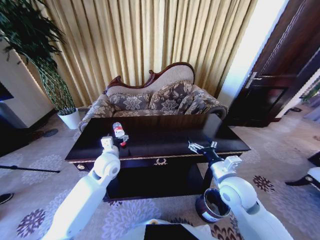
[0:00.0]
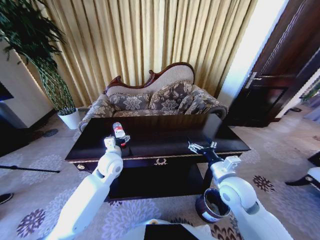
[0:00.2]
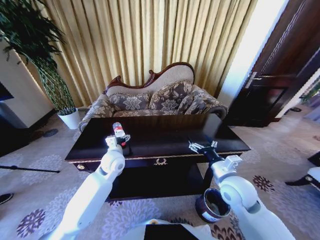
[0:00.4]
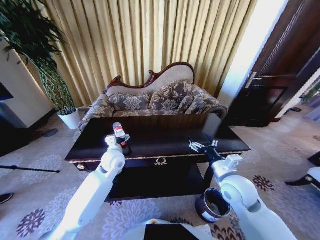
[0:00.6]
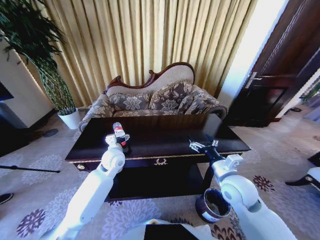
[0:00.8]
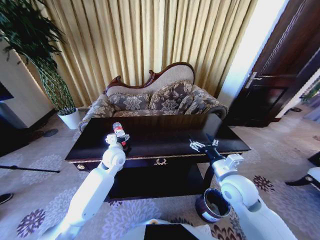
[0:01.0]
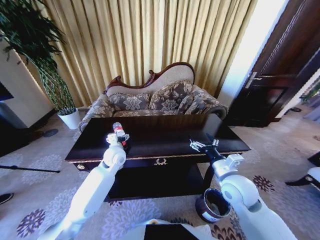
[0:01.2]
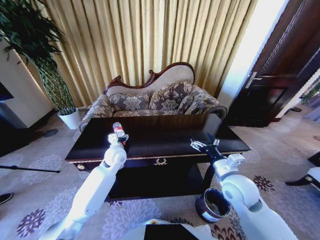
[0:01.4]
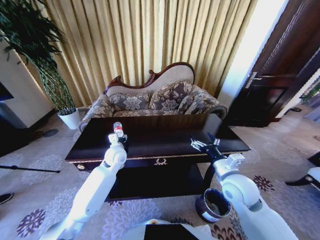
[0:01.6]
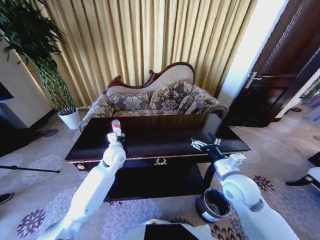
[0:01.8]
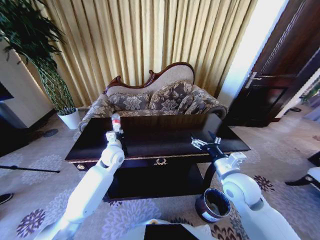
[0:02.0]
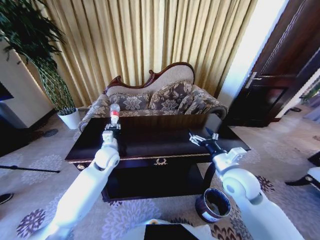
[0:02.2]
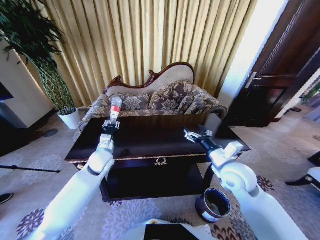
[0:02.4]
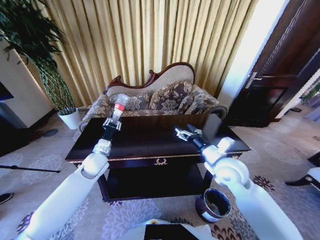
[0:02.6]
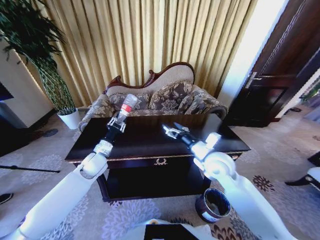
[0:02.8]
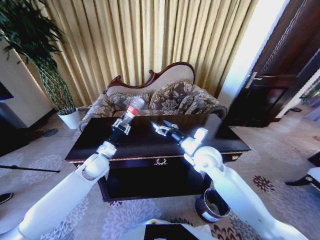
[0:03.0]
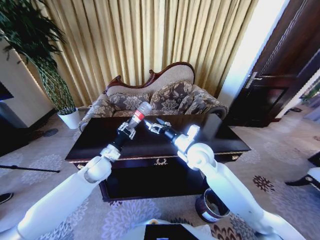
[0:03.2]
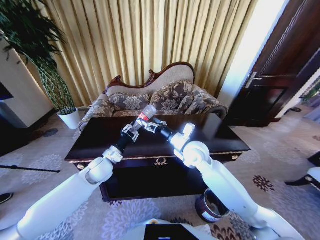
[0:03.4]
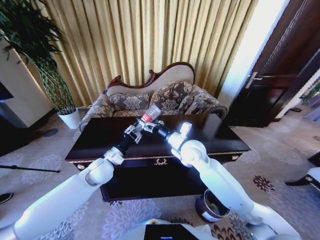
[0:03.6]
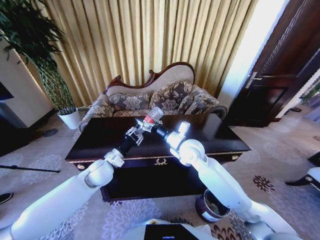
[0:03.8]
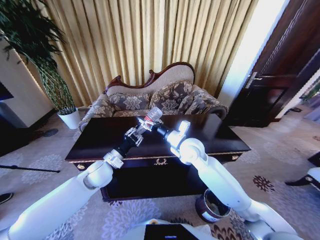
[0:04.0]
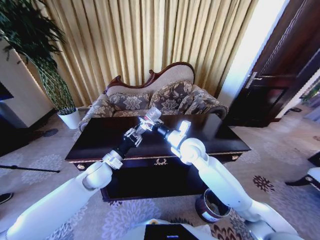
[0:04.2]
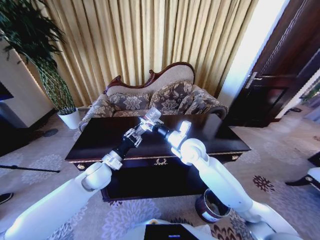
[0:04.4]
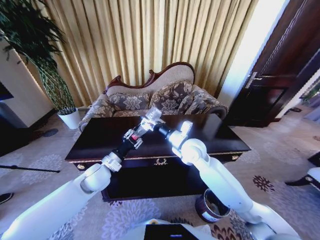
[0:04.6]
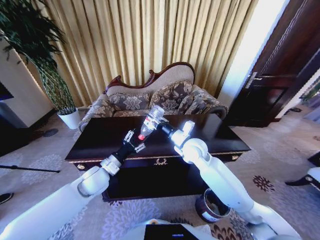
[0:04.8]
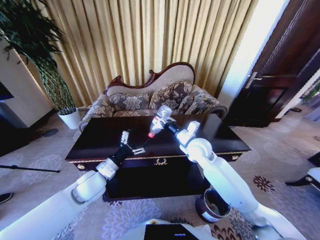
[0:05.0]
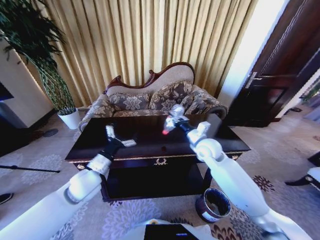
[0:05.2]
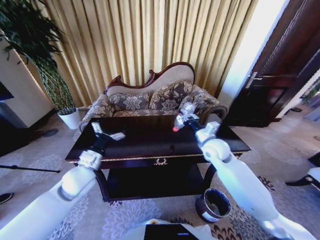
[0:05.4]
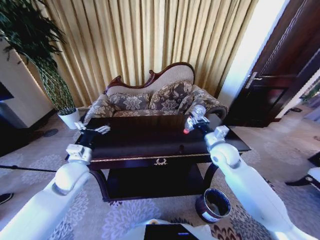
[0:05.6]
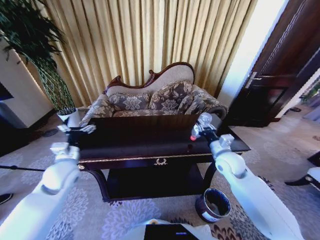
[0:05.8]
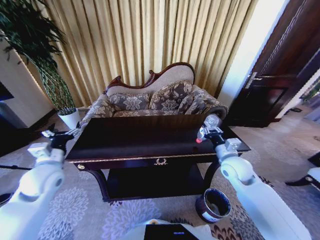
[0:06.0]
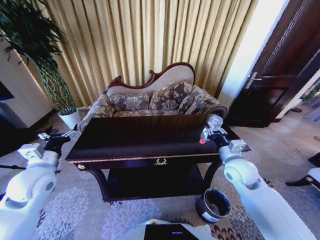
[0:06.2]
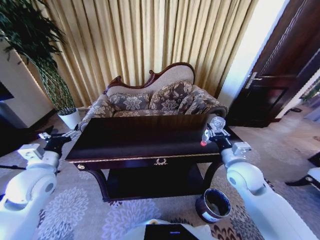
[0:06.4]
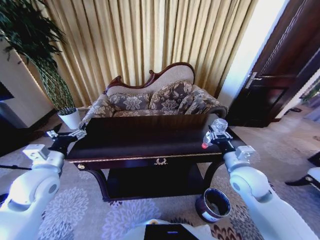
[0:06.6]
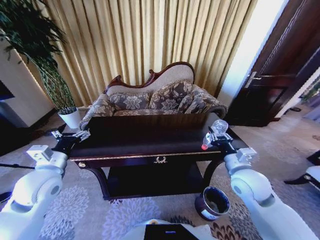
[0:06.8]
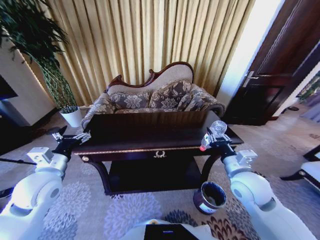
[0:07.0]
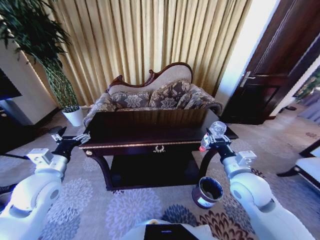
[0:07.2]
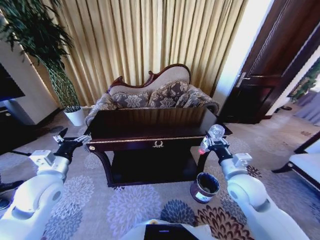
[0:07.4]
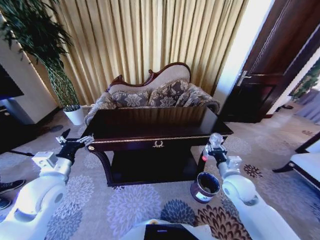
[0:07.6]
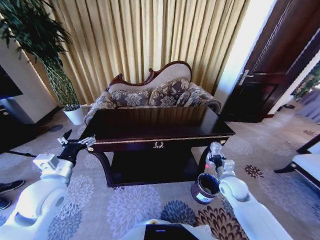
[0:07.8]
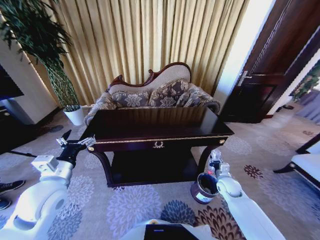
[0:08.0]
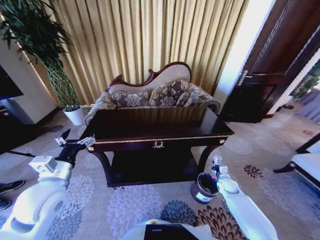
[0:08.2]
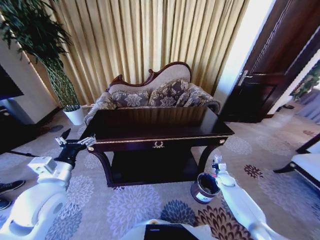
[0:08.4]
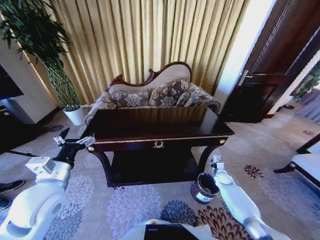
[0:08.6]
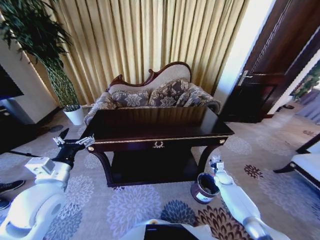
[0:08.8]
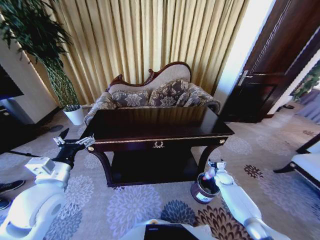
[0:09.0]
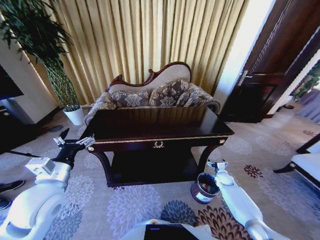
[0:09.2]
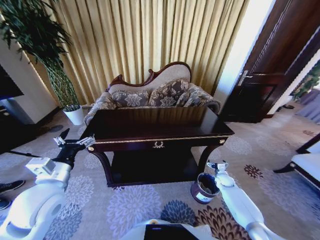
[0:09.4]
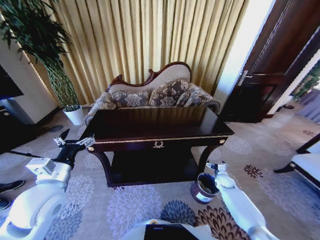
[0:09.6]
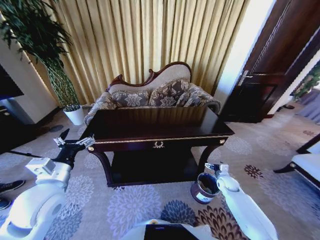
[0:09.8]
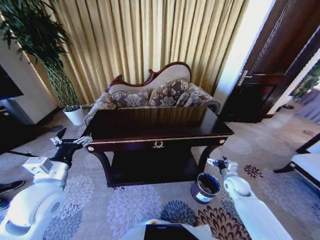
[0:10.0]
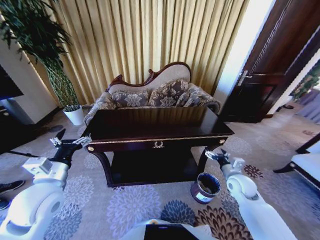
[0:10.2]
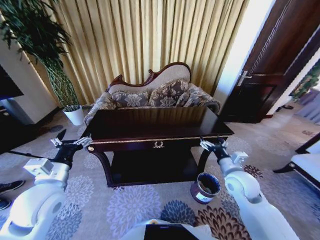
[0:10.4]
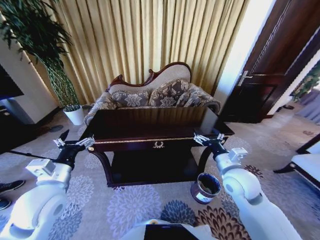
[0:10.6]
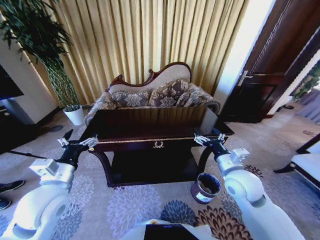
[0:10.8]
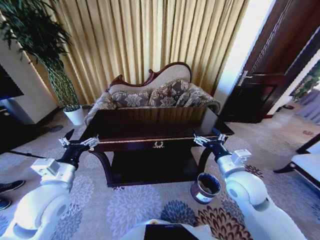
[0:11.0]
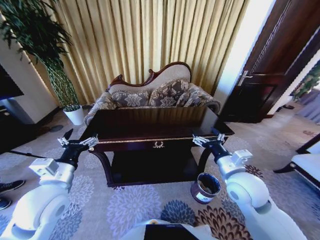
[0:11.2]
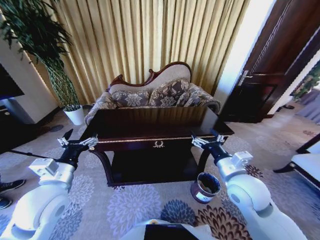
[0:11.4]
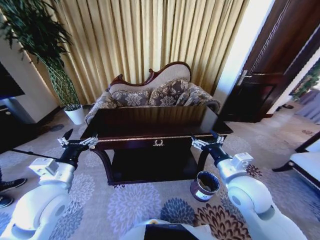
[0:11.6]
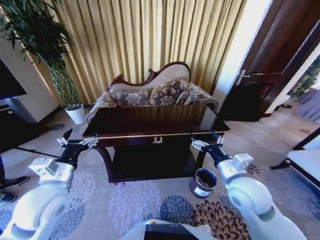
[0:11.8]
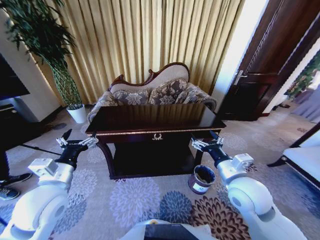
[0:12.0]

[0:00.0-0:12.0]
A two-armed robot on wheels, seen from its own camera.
Task of the whole recording: Move to the front of the table and place the trash on the table into the trash bin.
0:00.0 to 0:01.6: The left gripper heads forward, covering approximately 5 cm, and closes up.
0:01.6 to 0:03.0: The left gripper moves to the left, approximately 5 cm, and closes up. Meanwhile the right gripper shifts some 15 cm forward and to the left.
0:03.0 to 0:04.4: The right gripper ends up roughly 5 cm from where it was, and closes its fingers.
0:04.4 to 0:06.0: The right gripper goes some 15 cm to the right. The left gripper is displaced to the left and upward by roughly 15 cm, and opens its fingers.
0:06.0 to 0:07.6: The right gripper heads backward, covering about 5 cm; the left gripper shifts by roughly 5 cm.
0:07.6 to 0:09.0: The right gripper heads downward, to the right and forward, covering roughly 30 cm, and opens up.
0:09.0 to 0:10.4: The right gripper travels upward, to the left and backward by some 30 cm.
0:10.4 to 0:12.0: The right gripper is displaced upward by roughly 5 cm.

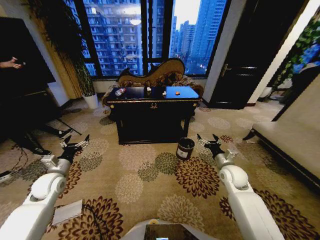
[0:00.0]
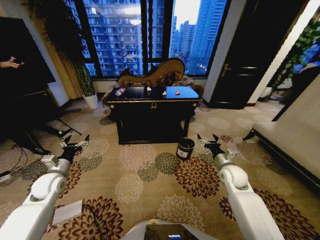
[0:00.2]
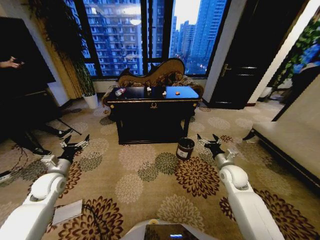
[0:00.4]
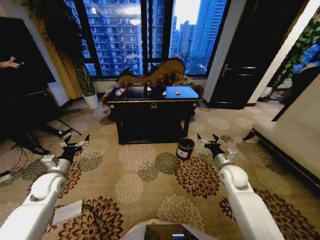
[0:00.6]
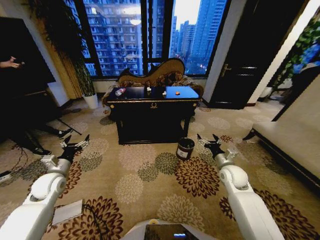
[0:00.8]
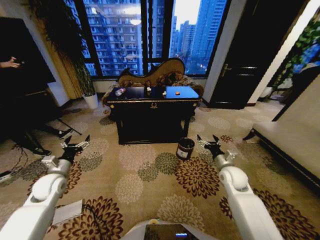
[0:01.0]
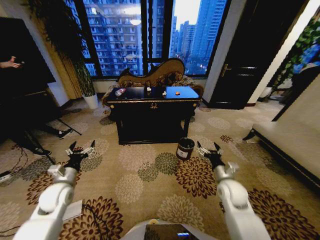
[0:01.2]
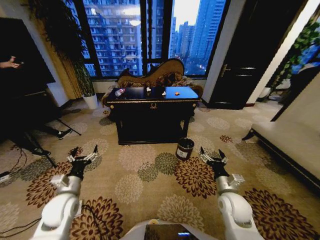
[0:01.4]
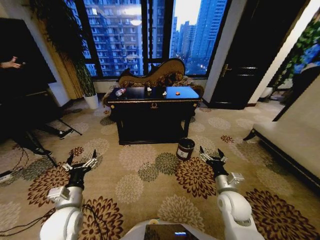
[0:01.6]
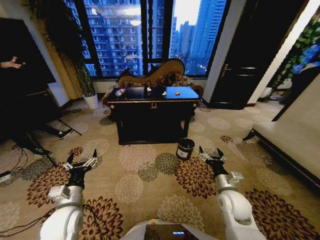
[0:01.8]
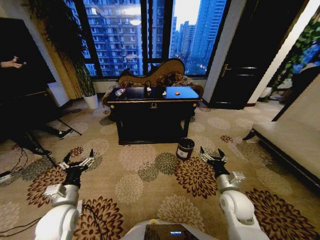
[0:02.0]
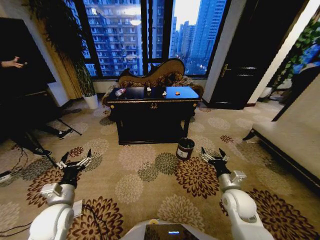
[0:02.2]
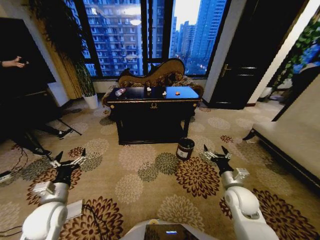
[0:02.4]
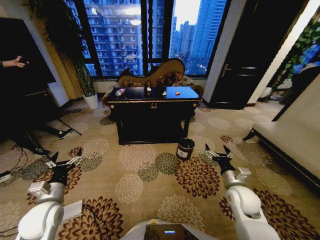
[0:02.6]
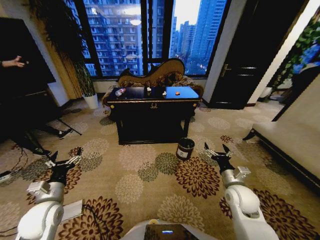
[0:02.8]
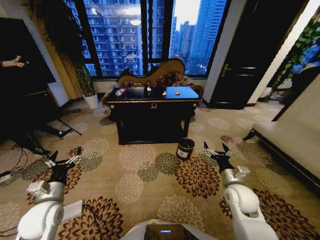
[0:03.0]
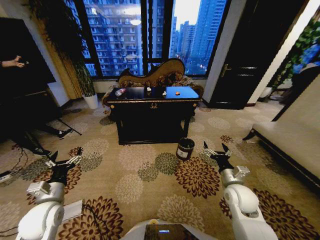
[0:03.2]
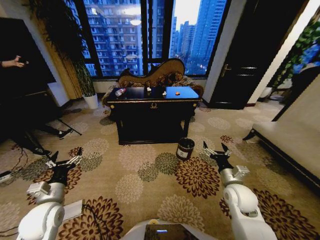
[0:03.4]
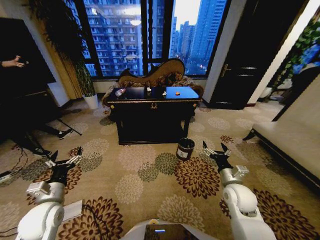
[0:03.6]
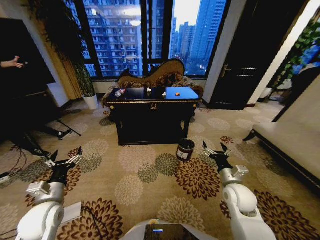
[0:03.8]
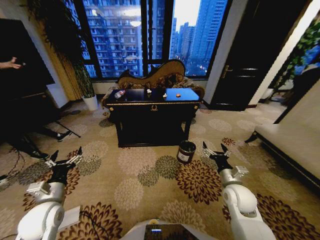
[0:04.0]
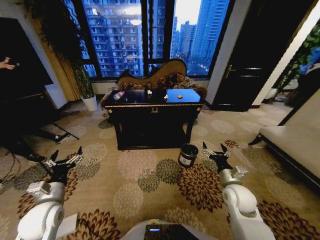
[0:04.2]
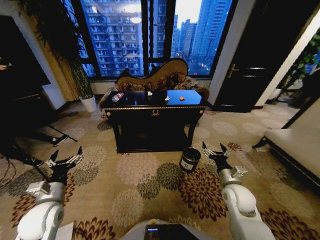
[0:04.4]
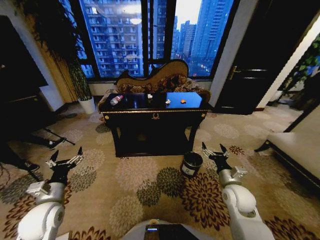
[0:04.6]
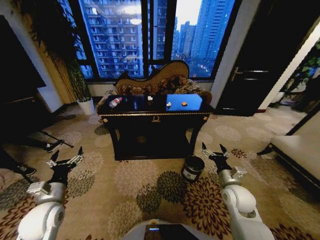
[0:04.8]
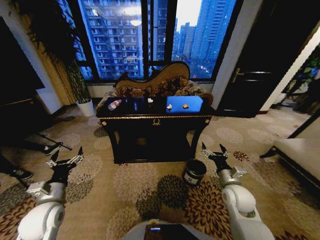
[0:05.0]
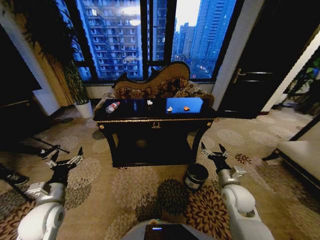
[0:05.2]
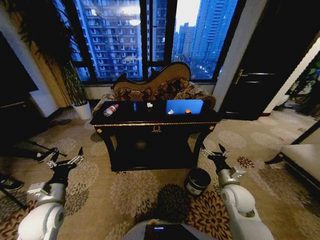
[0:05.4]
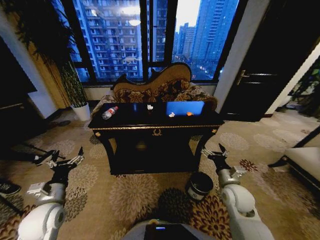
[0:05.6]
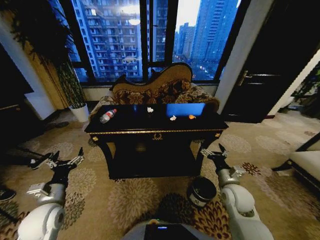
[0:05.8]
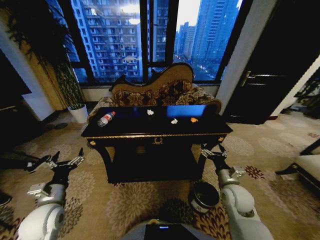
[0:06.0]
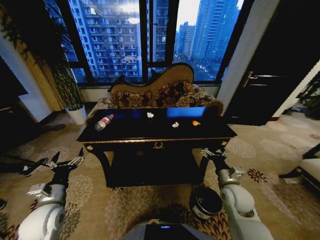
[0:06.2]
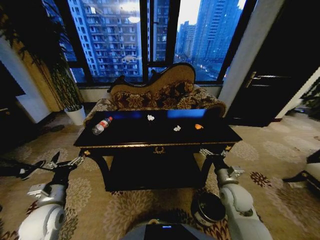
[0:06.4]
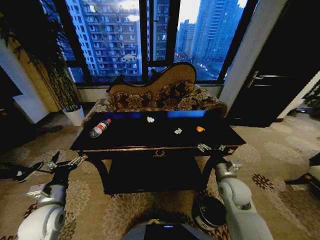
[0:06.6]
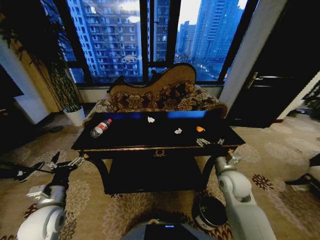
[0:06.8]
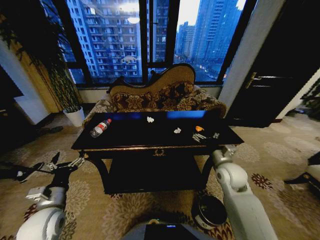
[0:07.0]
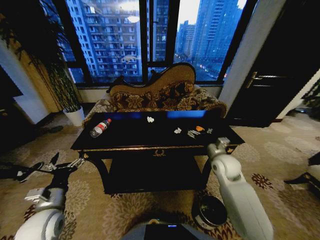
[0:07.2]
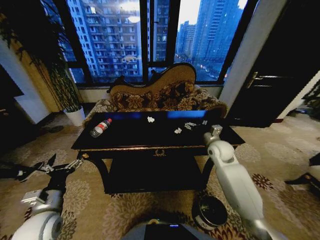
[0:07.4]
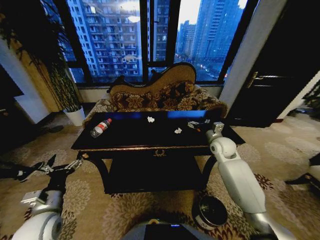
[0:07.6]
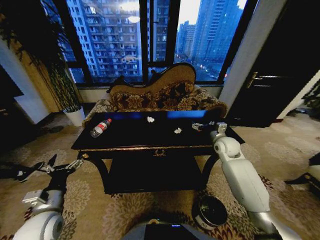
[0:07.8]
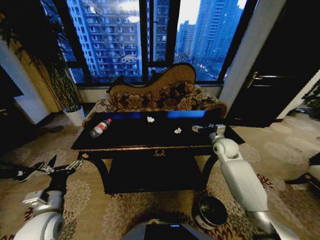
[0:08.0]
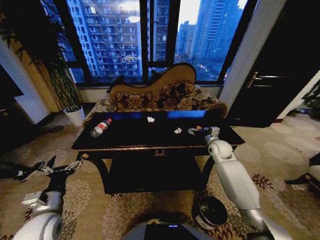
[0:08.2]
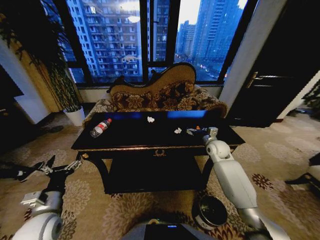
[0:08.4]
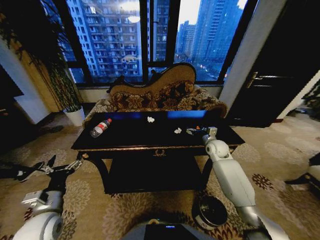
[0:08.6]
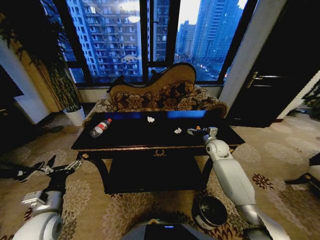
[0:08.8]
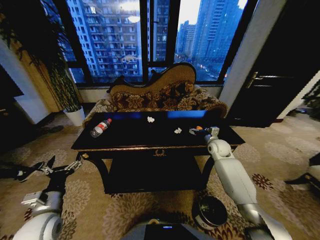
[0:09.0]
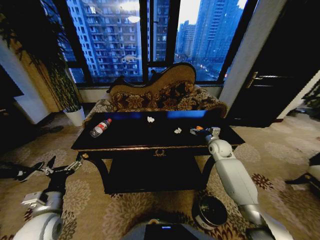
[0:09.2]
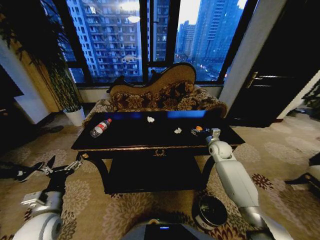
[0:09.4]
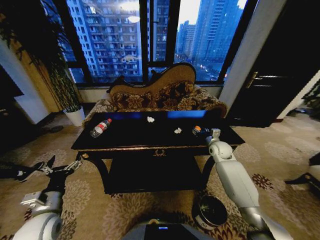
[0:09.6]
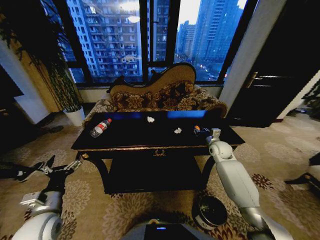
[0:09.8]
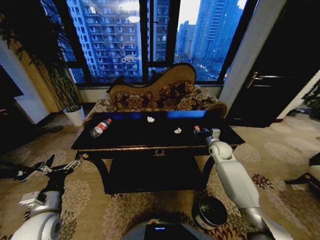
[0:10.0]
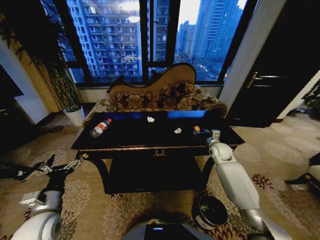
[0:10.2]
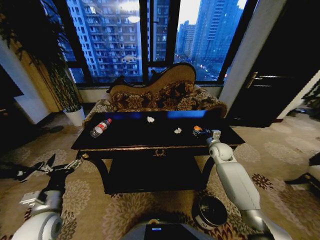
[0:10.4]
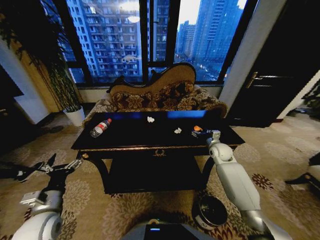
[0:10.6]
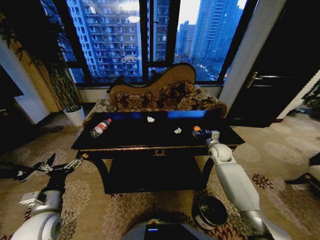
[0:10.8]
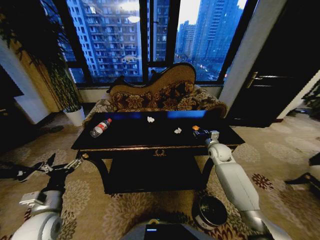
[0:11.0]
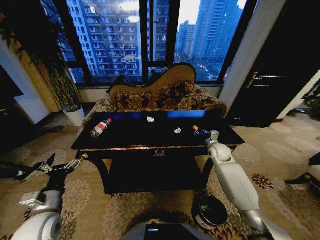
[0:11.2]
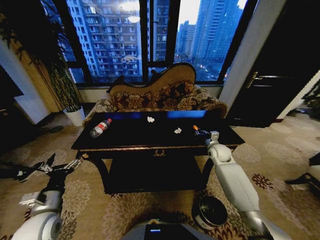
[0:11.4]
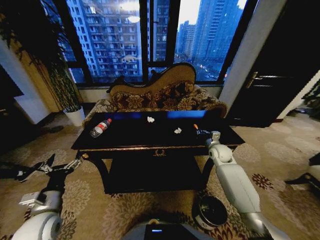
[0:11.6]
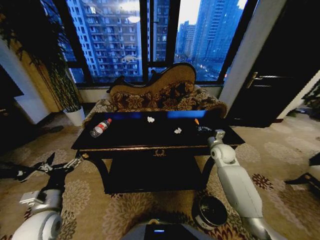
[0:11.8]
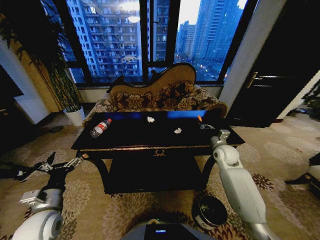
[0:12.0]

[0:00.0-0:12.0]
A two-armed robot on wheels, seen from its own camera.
Task of the whole recording: Move to the front of the table and place the trash on the table into the trash bin.
0:01.6 to 0:03.0: The left gripper shifts roughly 5 cm to the left.
0:06.0 to 0:07.6: The right gripper goes roughly 20 cm forward.
0:07.6 to 0:09.0: The right gripper moves downward, approximately 5 cm.
0:09.0 to 0:10.4: The grippers stay close to where they were, moving slightly.
0:10.4 to 0:12.0: The right gripper changes place by some 5 cm, and closes.
